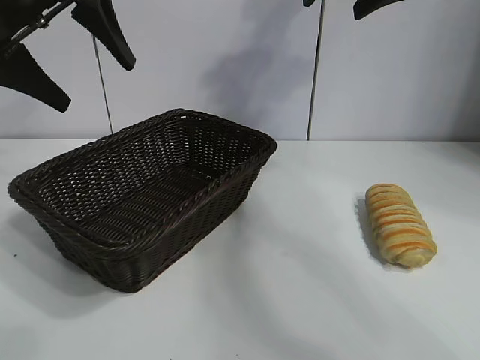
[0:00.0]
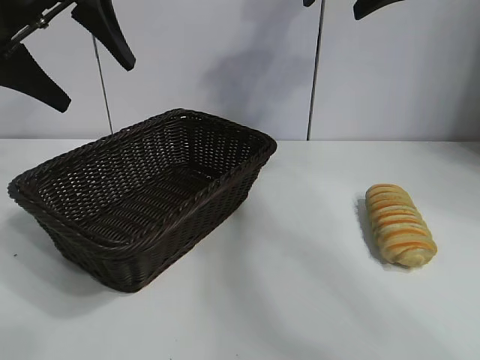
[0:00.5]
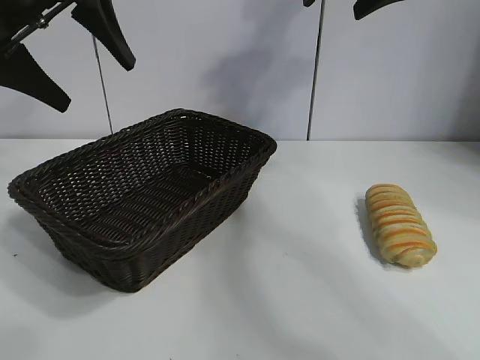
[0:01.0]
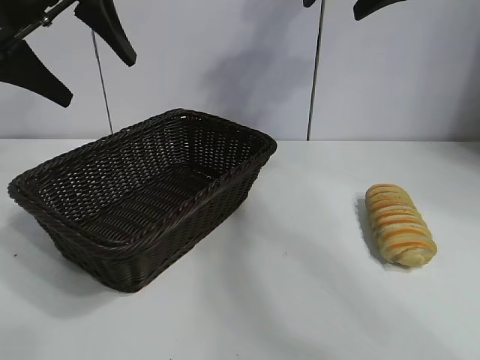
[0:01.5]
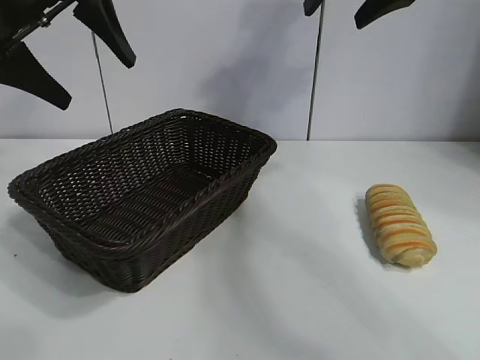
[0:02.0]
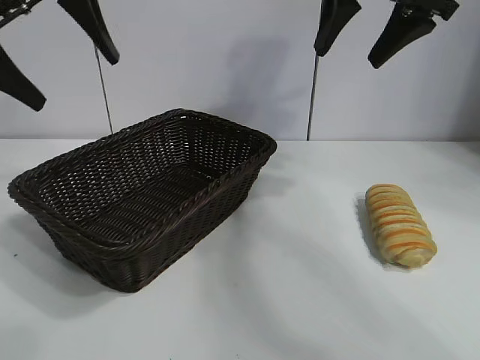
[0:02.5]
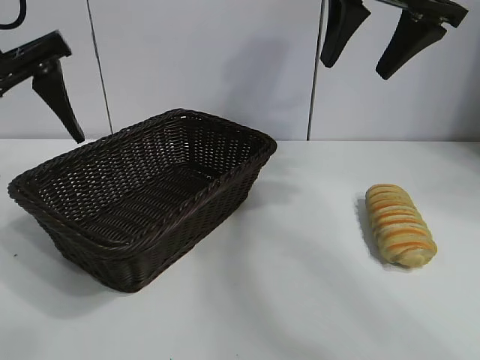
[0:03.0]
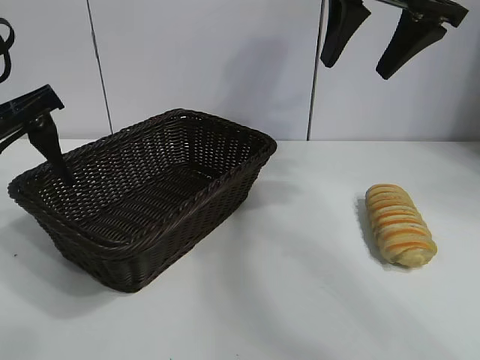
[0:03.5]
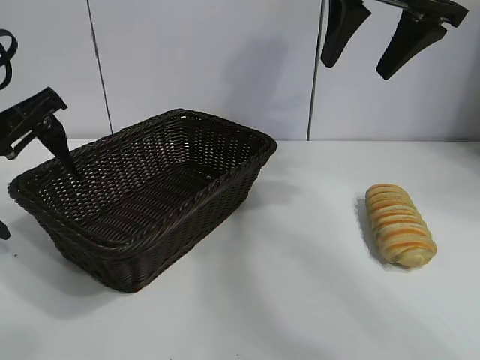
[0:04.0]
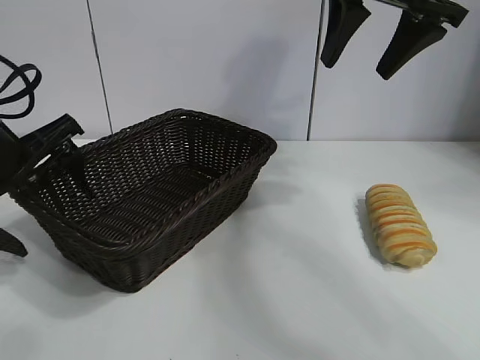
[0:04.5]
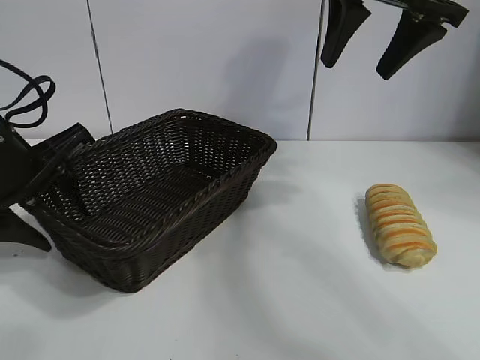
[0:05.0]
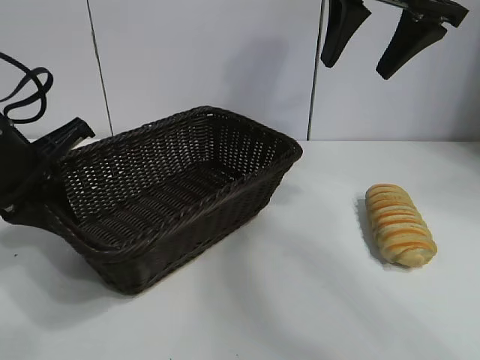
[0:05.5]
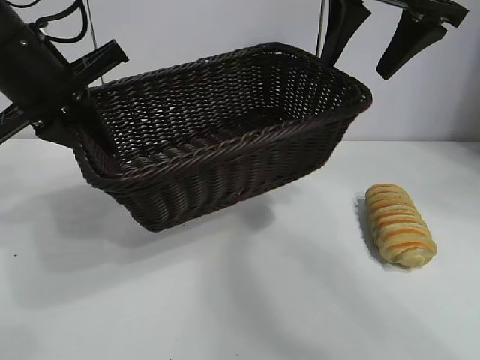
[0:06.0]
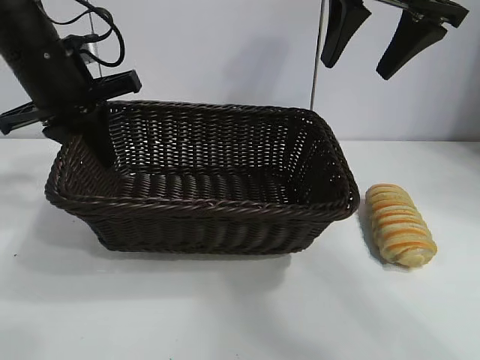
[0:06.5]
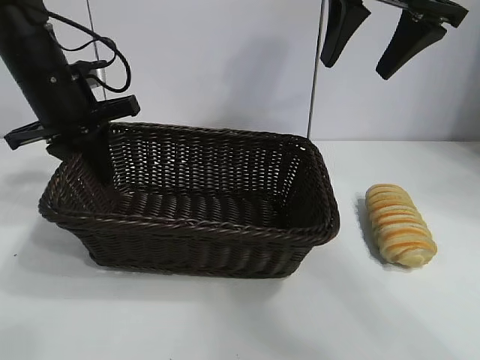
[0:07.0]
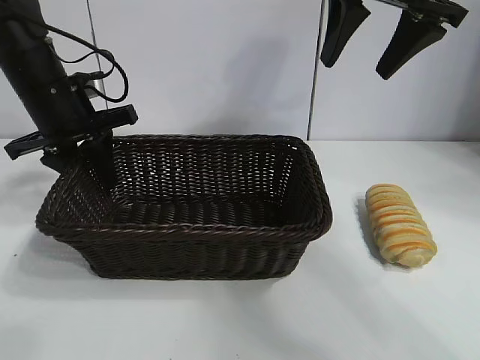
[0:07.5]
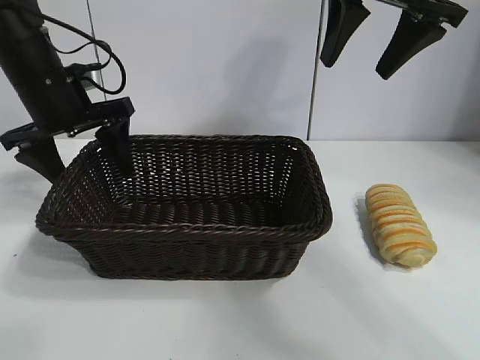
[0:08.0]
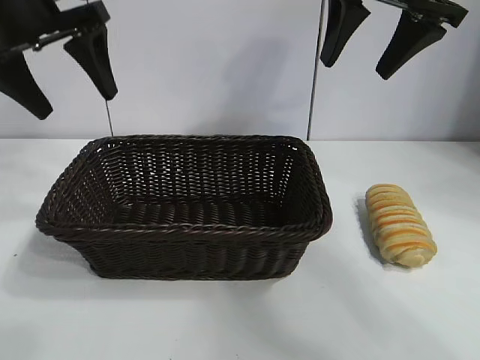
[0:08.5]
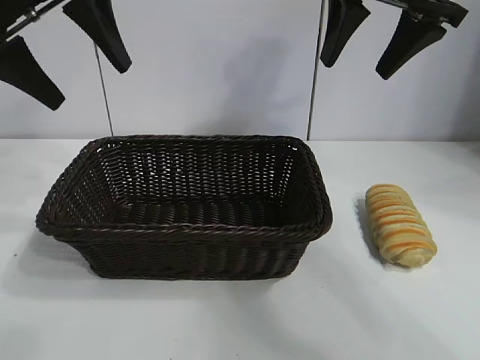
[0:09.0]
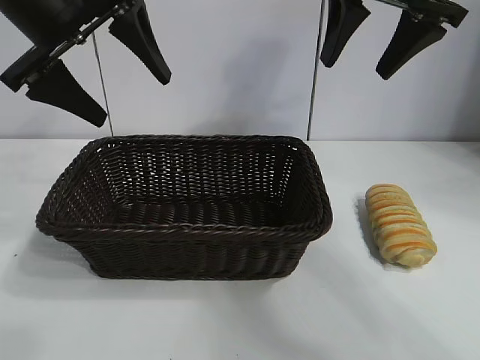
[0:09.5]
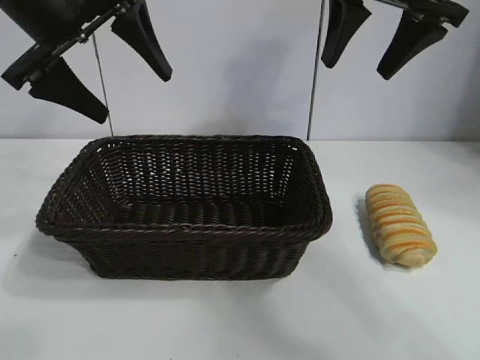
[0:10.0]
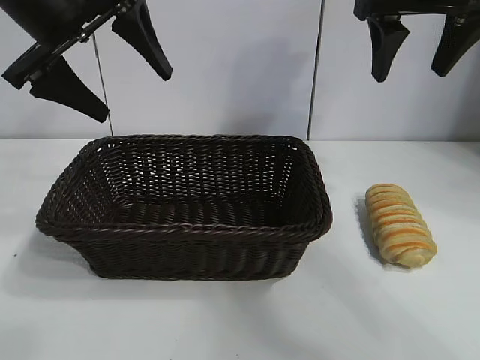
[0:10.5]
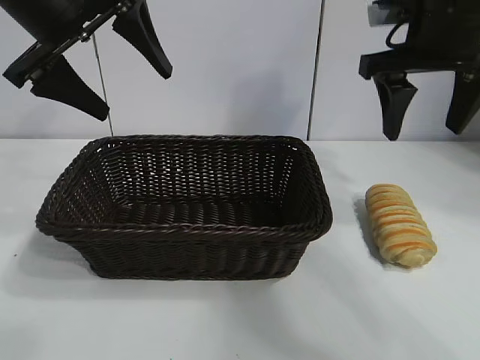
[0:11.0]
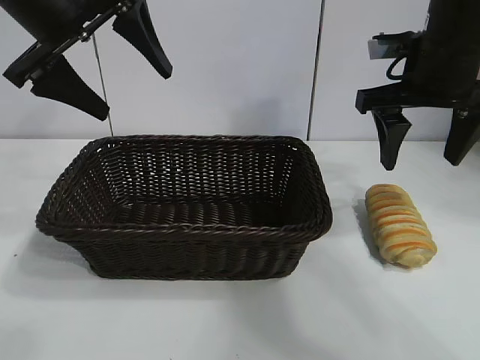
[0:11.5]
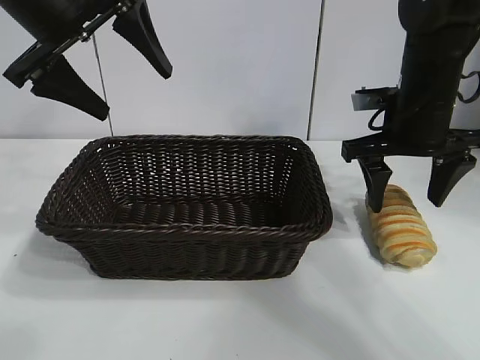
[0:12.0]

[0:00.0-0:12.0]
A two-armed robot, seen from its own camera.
Task of the whole recording: pick up the long bread and put it into the basket.
Step, 0:01.5 to 0:05.0: Grasp the basket with the left gripper.
Step, 0:06.0 to 0:07.5: Place the basket in the center of the table with the left gripper.

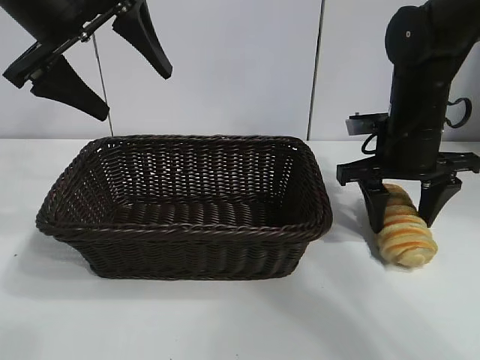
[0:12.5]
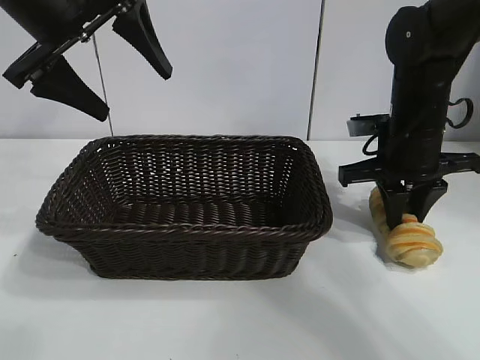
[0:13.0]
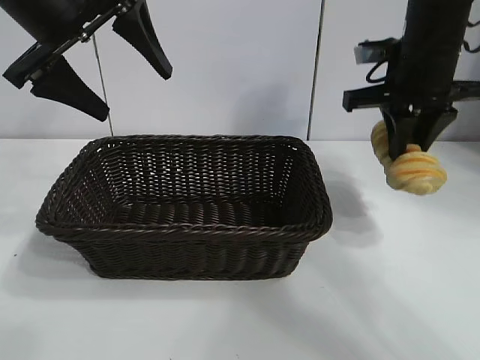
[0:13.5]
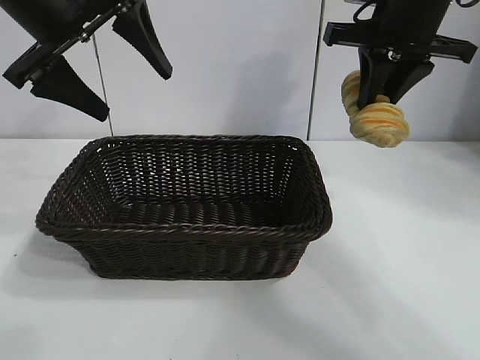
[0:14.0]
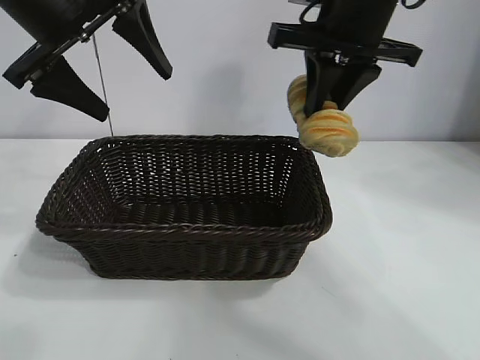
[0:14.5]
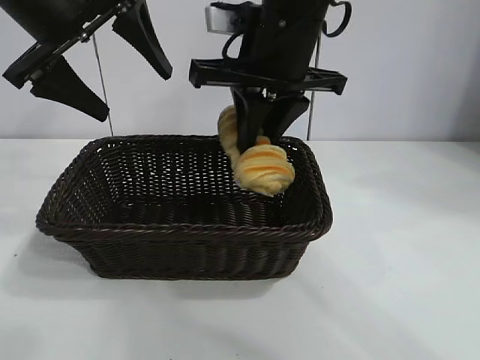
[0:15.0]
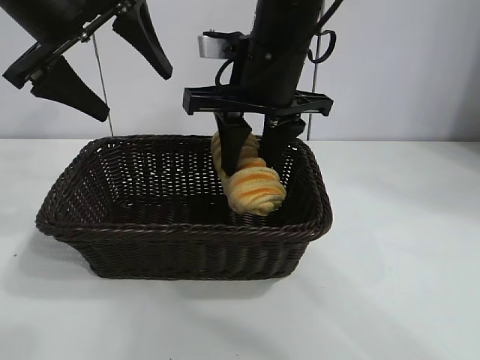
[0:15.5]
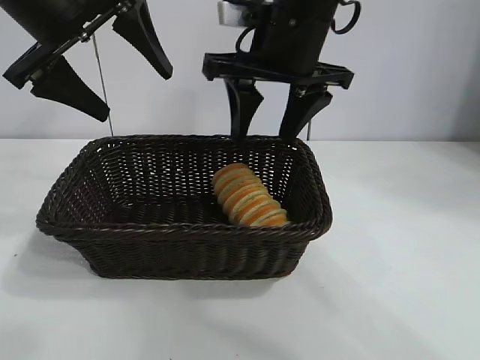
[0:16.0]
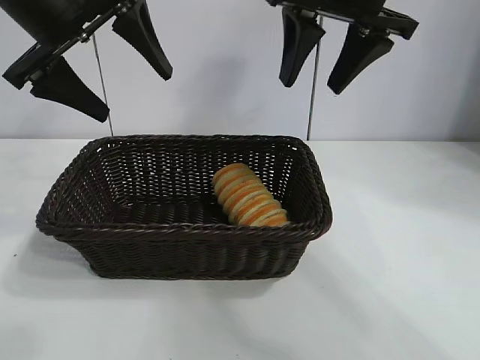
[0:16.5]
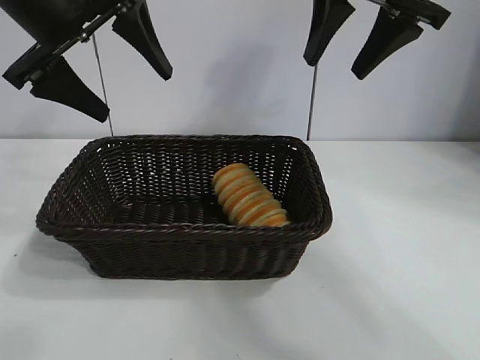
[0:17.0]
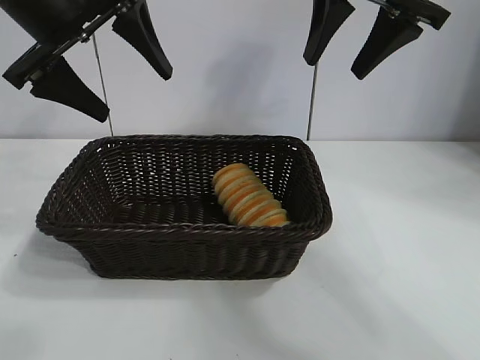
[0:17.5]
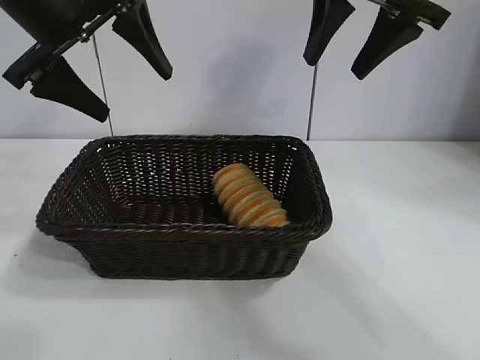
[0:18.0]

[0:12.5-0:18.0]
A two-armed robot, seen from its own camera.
Task of the whole recording: pick up the long bread and put it into the basket.
Step, 0:13.5 to 0:15.5: Place the long bread in the basket with right gripper.

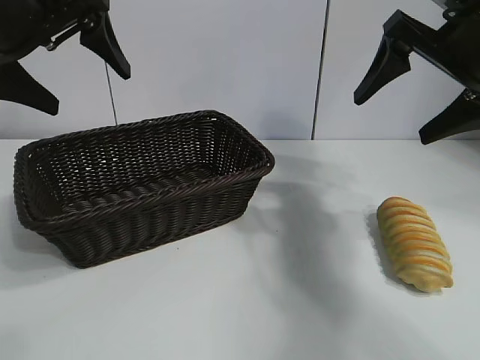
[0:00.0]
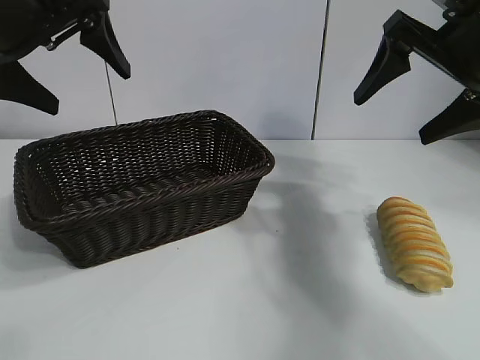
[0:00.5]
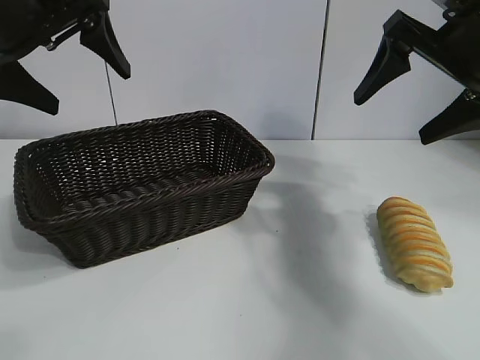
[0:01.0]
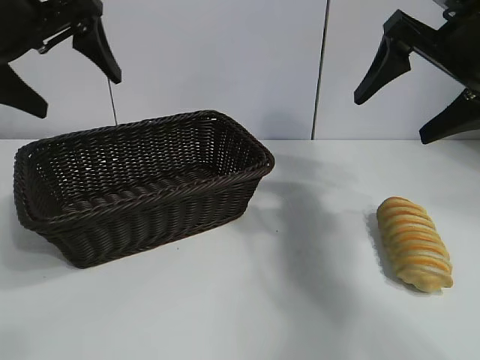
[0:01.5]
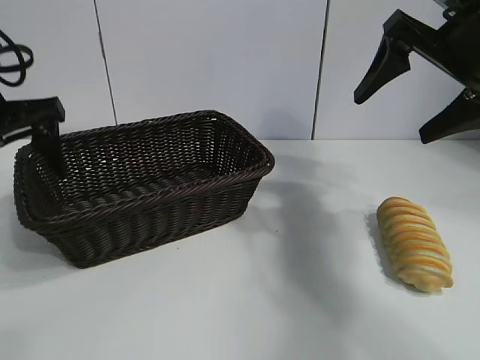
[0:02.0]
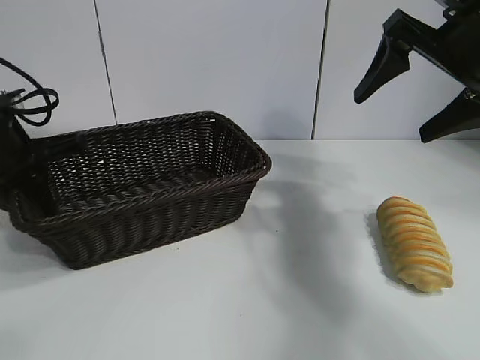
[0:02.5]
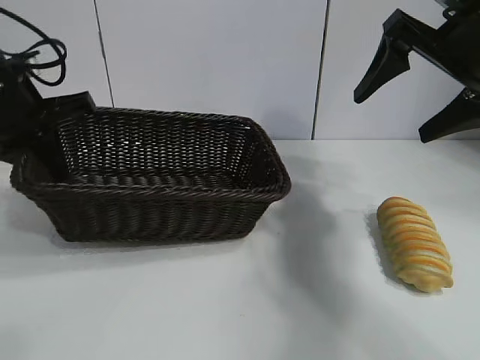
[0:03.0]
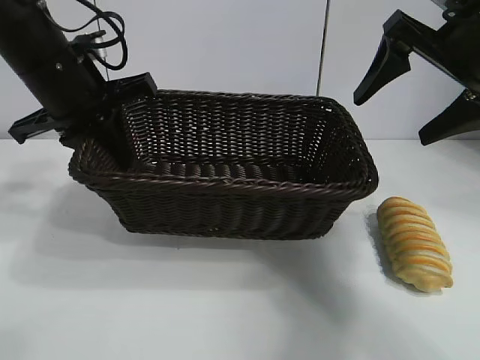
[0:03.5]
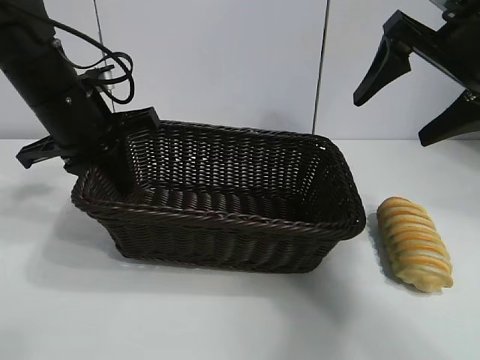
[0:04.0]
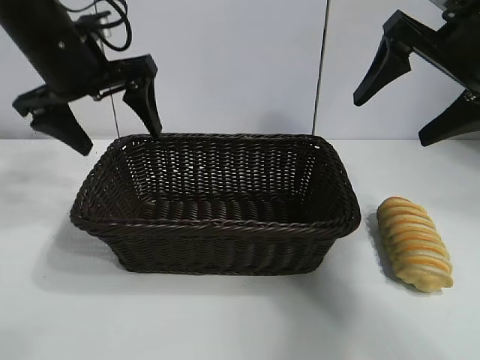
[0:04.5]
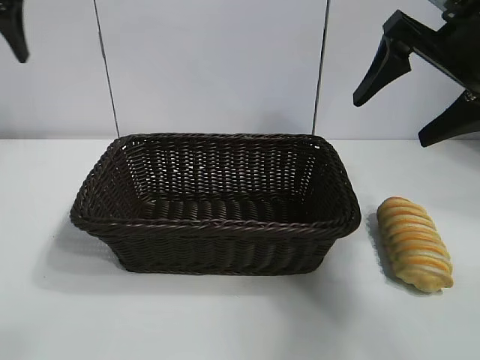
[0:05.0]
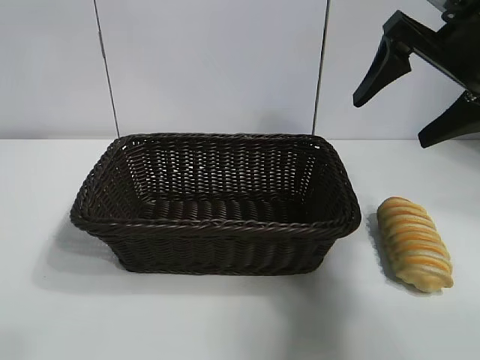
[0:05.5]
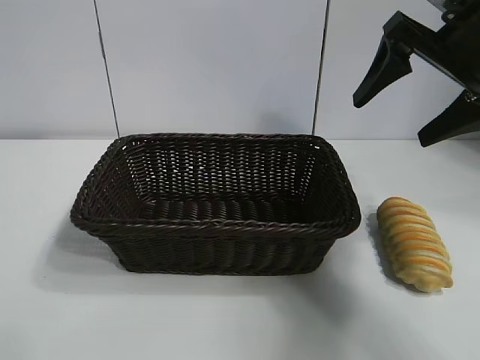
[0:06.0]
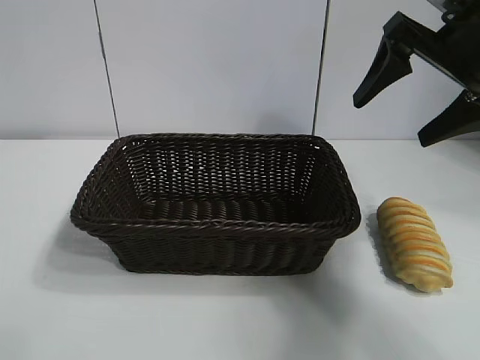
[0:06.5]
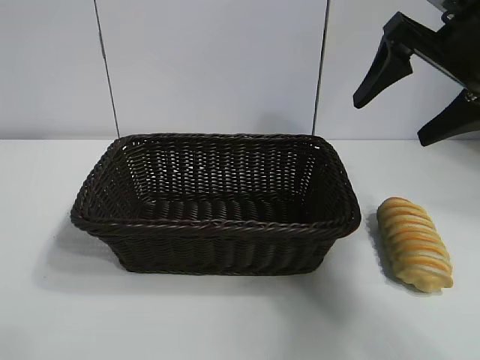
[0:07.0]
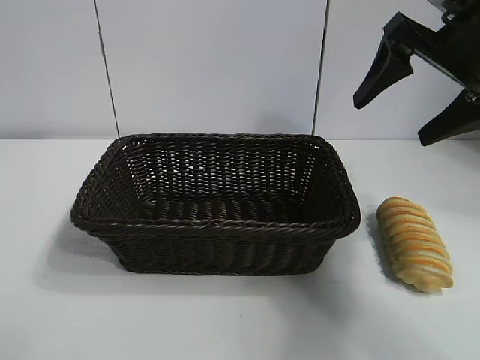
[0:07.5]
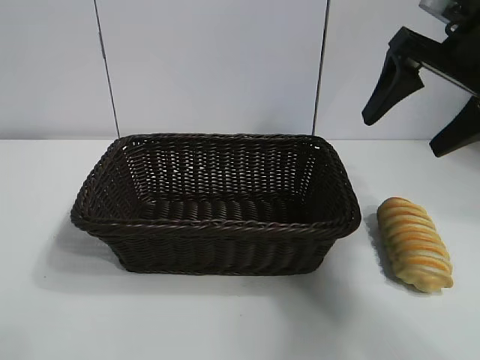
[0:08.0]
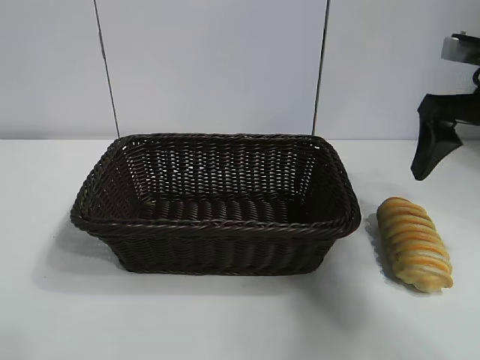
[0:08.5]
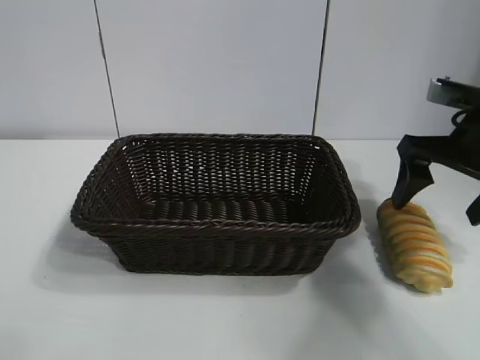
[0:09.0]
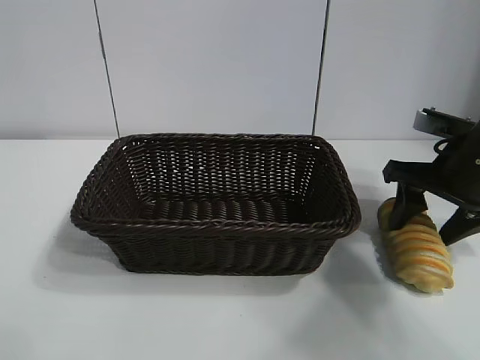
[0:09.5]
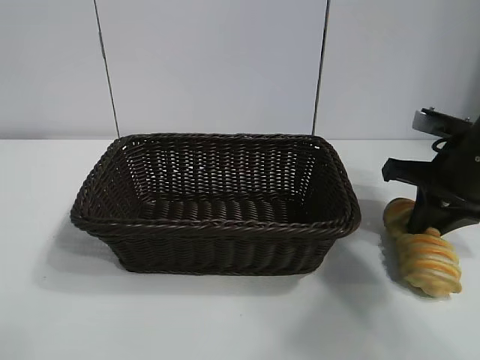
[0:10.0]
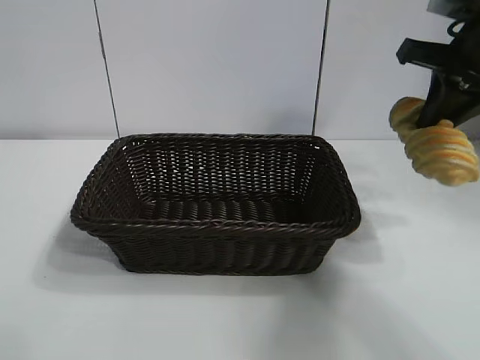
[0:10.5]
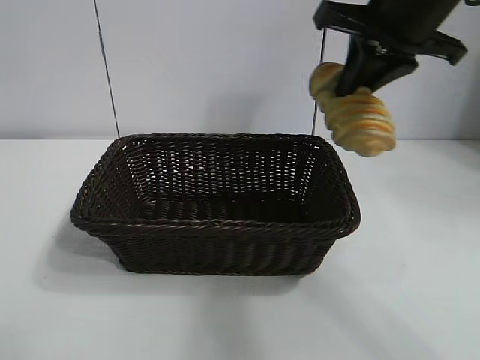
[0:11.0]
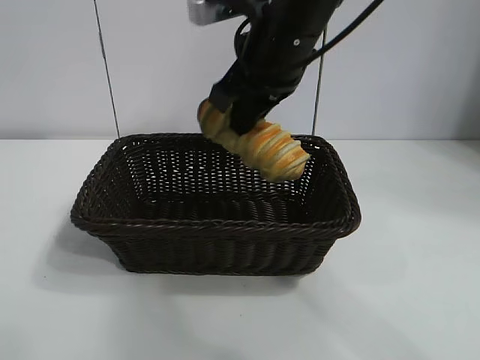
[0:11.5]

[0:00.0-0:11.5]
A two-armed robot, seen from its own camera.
Task of the whole recording: pick up the long bread and put it into the basket.
Step, 0:01.5 to 0:02.5: Grasp the basket with the left gripper.
Step, 0:03.0 to 0:04.0: Place the basket in the center of the table with the left gripper.
Step, 0:04.5 to 0:09.5: Grasp the long bread with right gripper.
